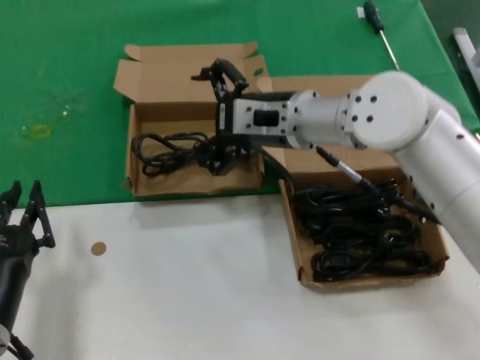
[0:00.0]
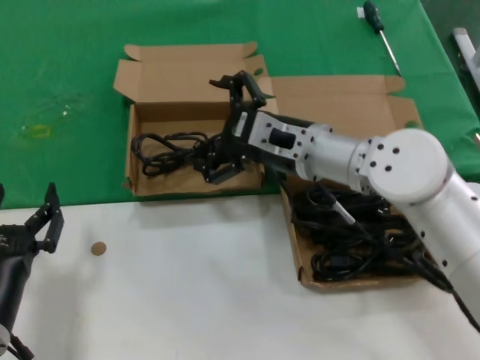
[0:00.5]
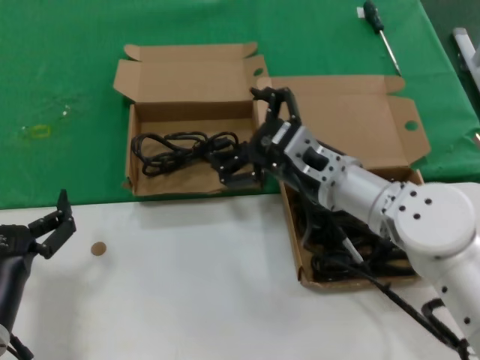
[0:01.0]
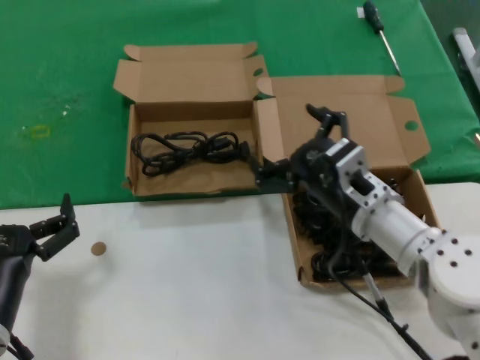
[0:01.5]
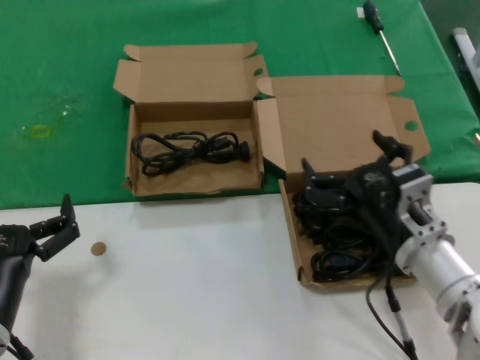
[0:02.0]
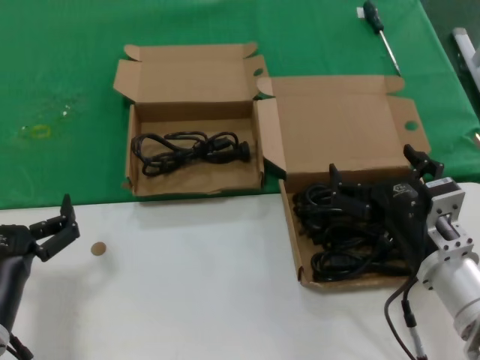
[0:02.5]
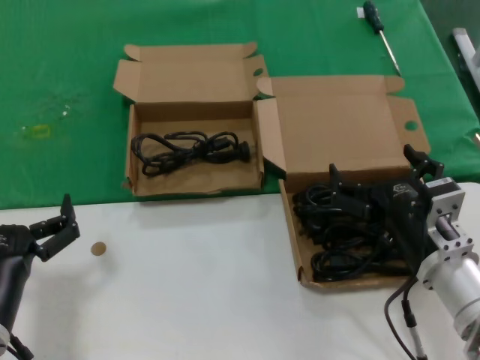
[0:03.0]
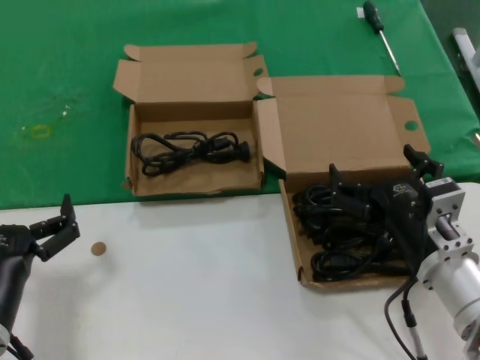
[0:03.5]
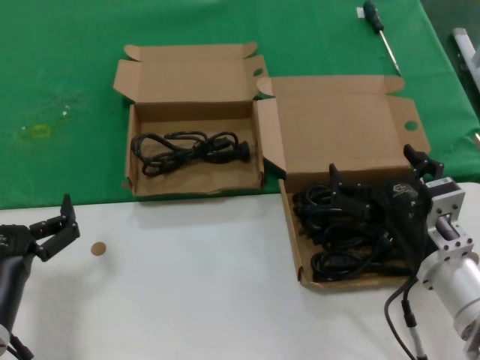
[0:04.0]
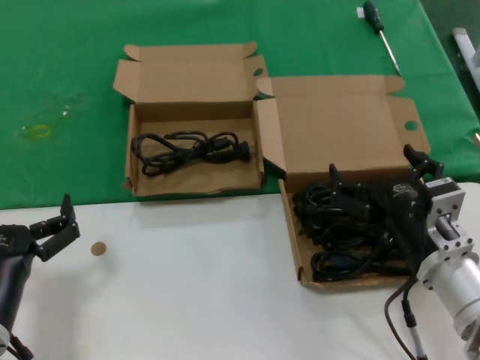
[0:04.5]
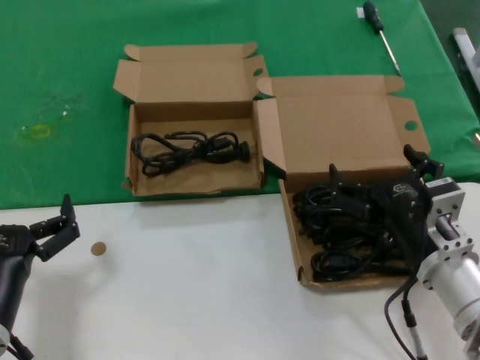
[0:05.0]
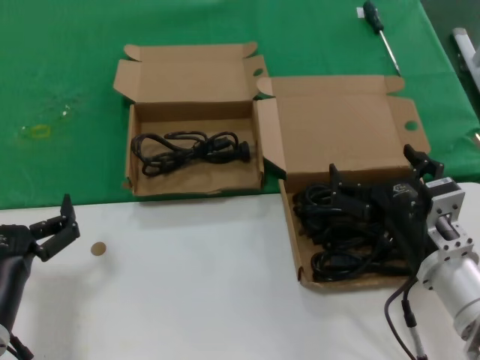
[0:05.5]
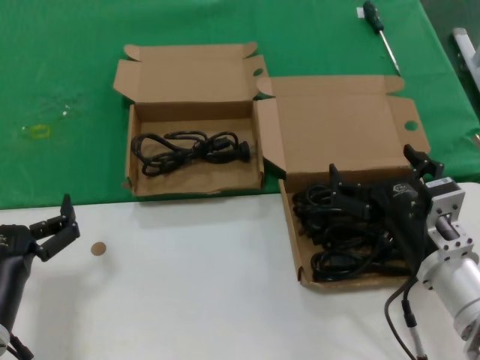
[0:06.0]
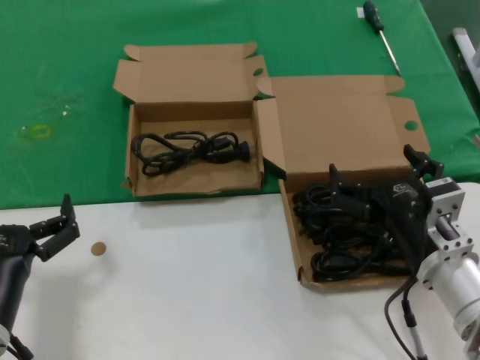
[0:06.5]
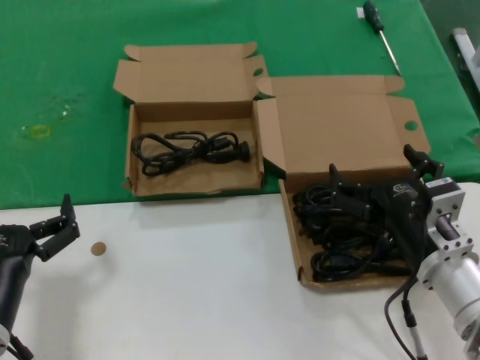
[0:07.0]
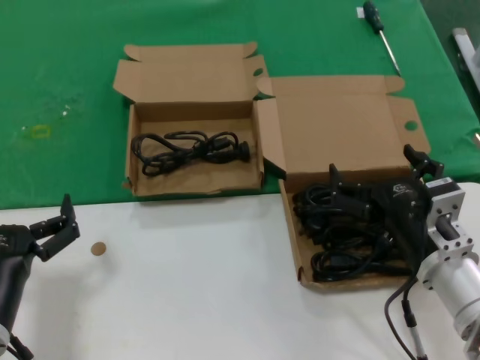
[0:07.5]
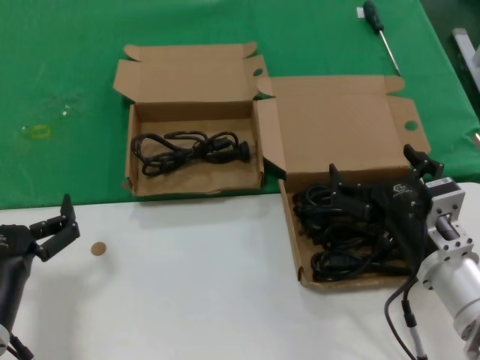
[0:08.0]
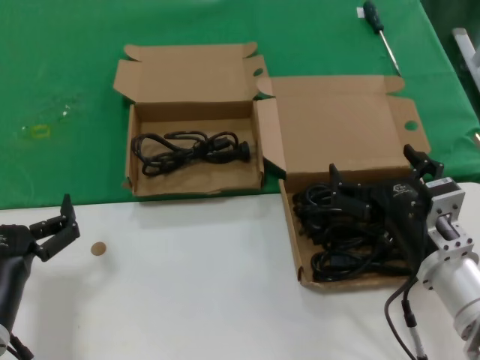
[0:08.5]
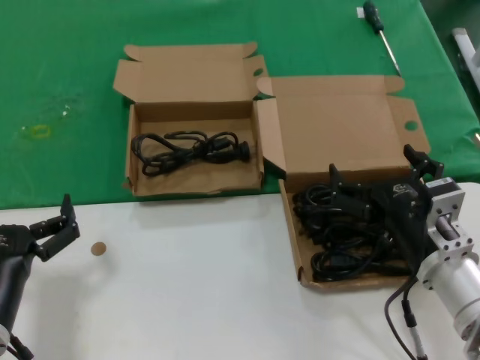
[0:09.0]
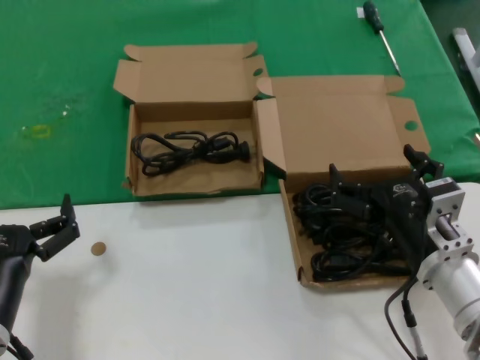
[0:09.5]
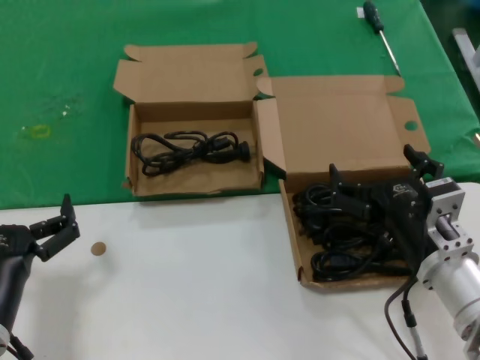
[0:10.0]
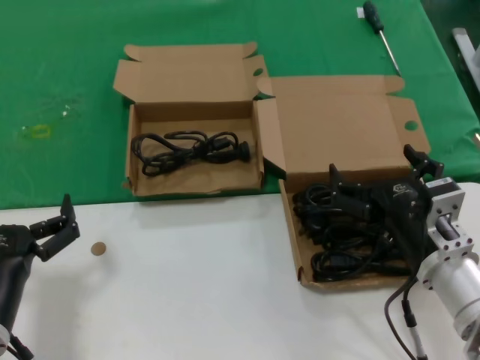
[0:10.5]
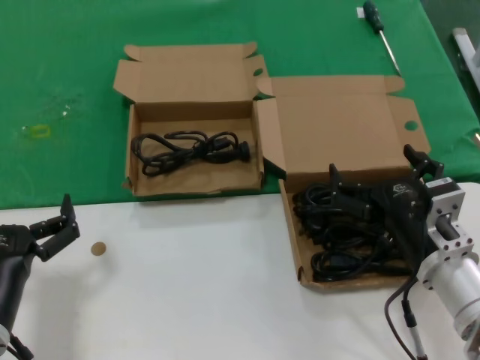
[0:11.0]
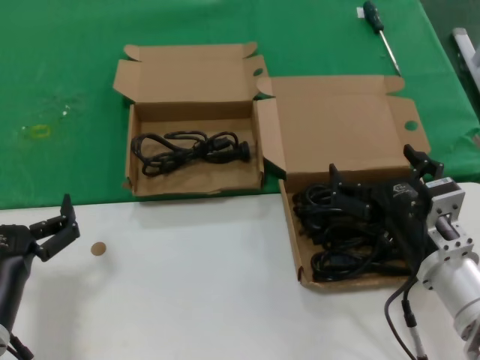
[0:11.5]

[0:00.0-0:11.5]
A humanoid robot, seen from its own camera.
Task of the whole recording: take the parts from the box containing them and put them into an empty box.
0:00.0 to 0:02.0: The right hand travels backward, downward and to the right by about 25 cm.
0:02.0 to 0:04.0: The hands stay close to where they were, moving slightly.
0:04.0 to 0:11.5: Neither hand changes place.

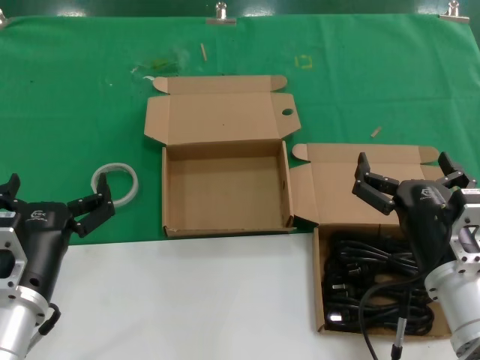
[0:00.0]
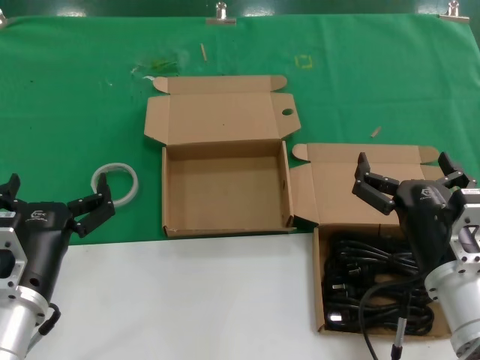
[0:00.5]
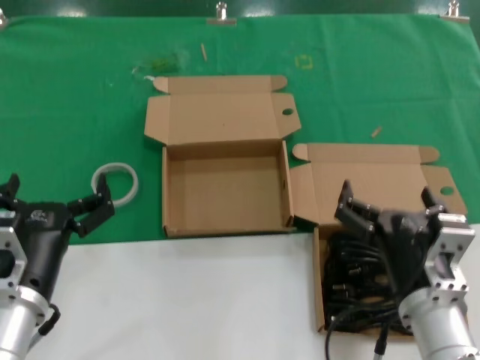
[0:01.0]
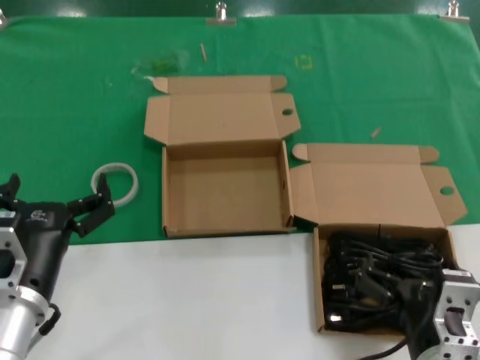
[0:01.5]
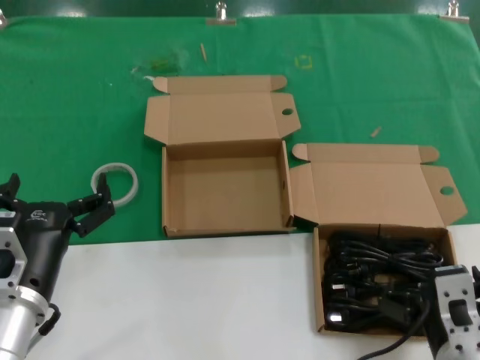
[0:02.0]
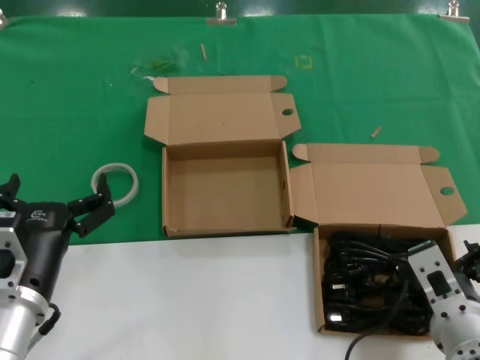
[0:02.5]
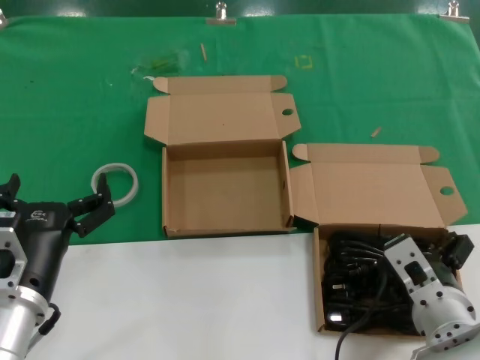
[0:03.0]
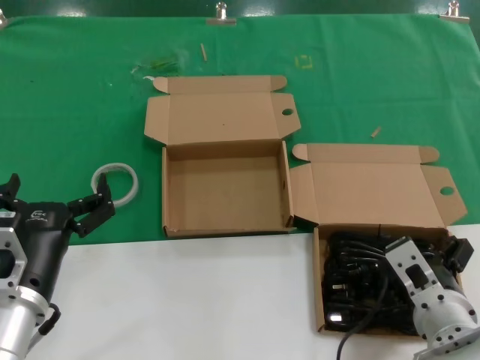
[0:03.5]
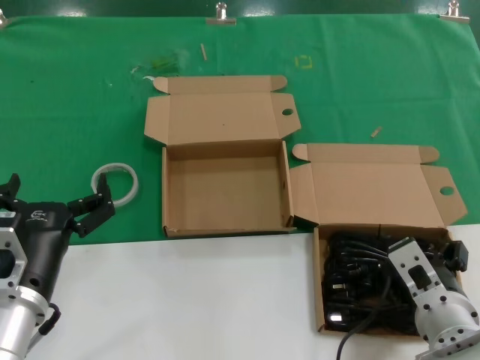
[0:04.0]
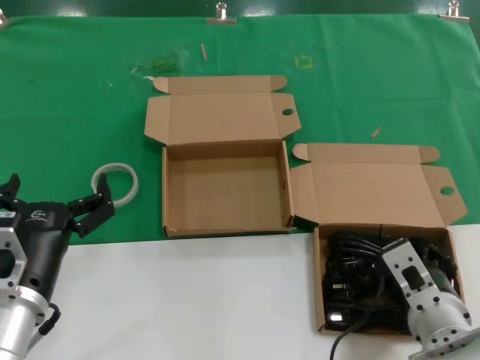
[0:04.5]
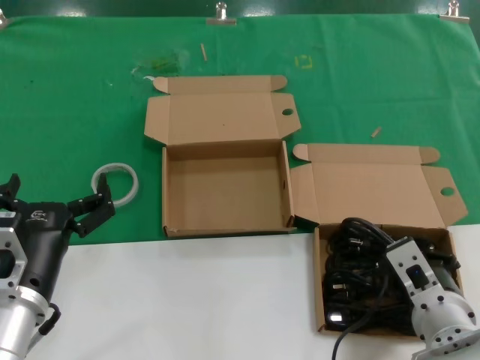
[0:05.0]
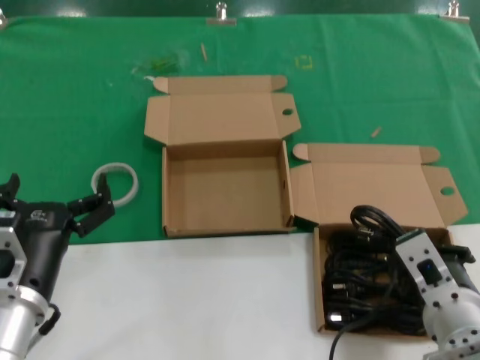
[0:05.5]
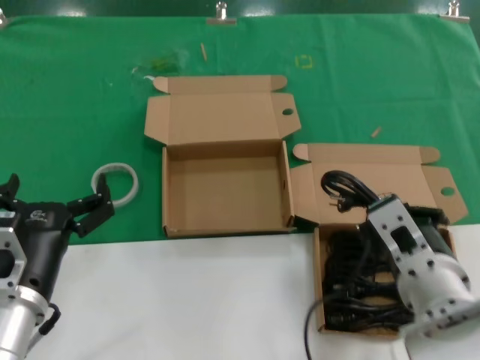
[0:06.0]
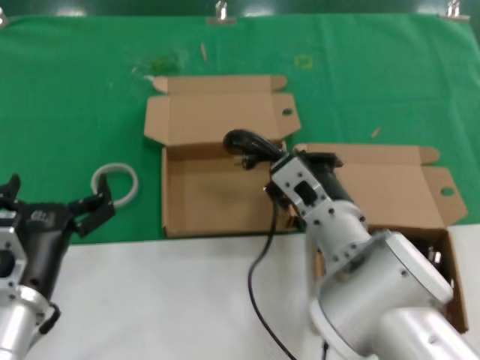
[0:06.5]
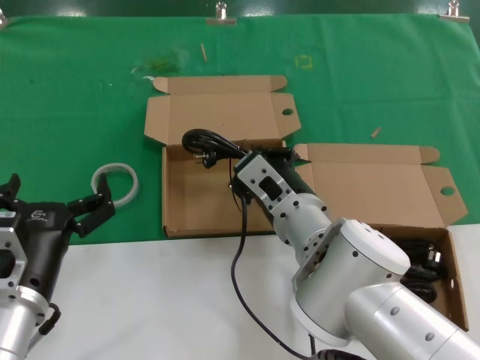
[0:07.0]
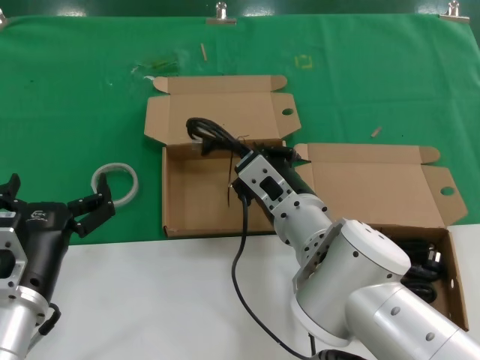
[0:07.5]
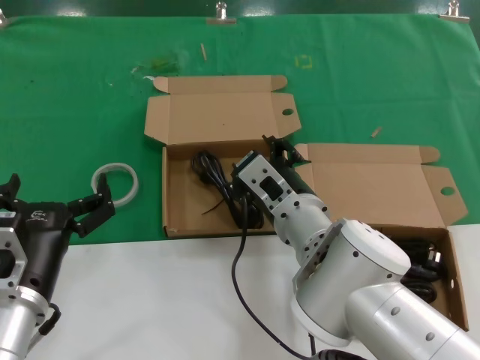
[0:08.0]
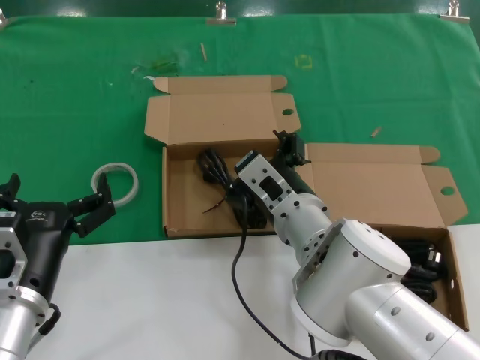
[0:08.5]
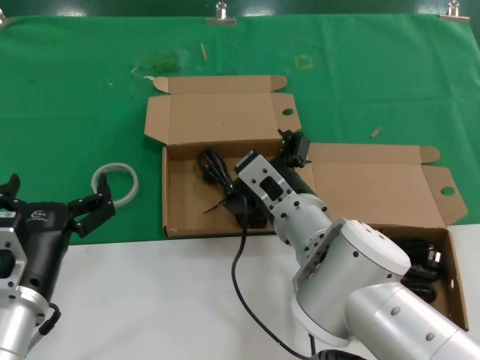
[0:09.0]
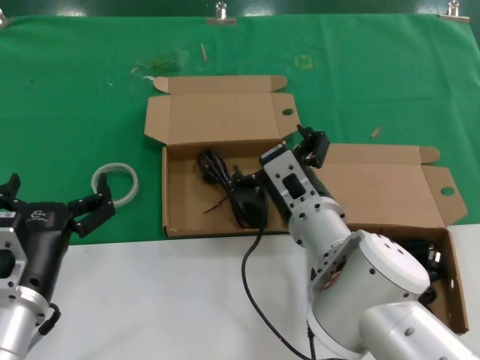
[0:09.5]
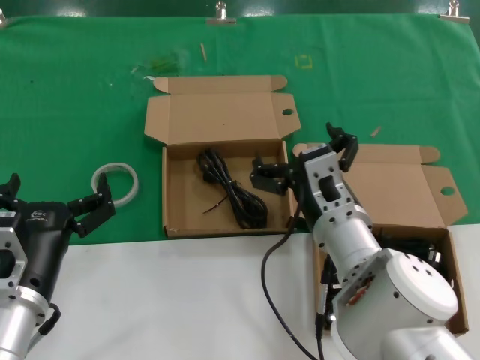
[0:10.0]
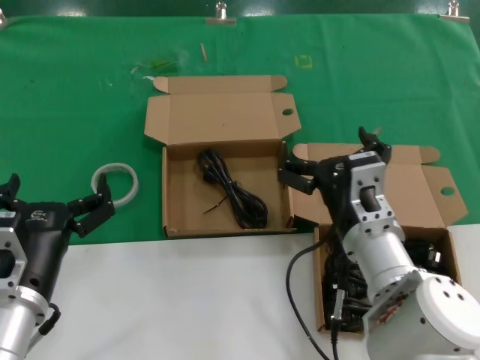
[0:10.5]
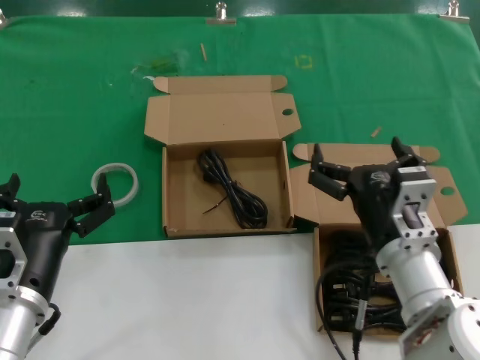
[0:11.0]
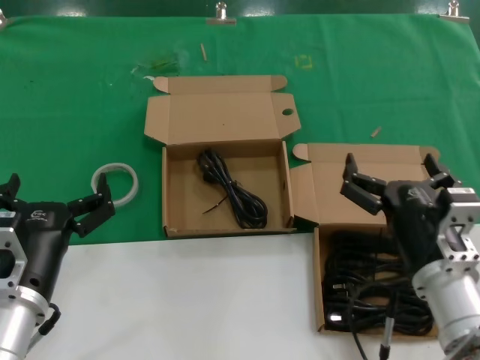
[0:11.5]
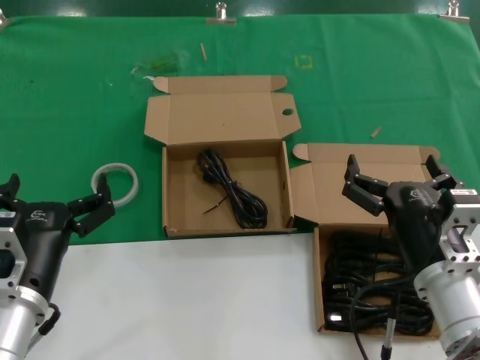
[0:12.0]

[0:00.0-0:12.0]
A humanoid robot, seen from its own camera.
Task of the whole recording: take the parts from the box containing them and put them into an empty box.
Step, 0:00.0 to 0:04.5: Grasp the data cable.
Step, 0:05.0 to 0:07.5: Place the data cable in the another box.
0:00.0 to 0:02.0: The right hand moves backward, about 5 cm.
0:02.0 to 0:04.0: The right hand moves forward, roughly 5 cm.
0:04.0 to 0:06.0: The right hand heads upward, covering some 10 cm.
0:06.0 to 0:08.0: The right hand goes roughly 15 cm forward and to the left.
0:10.0 to 0:12.0: The right hand heads to the right and backward, covering roughly 15 cm.

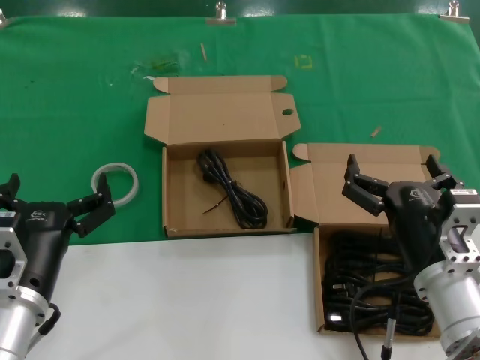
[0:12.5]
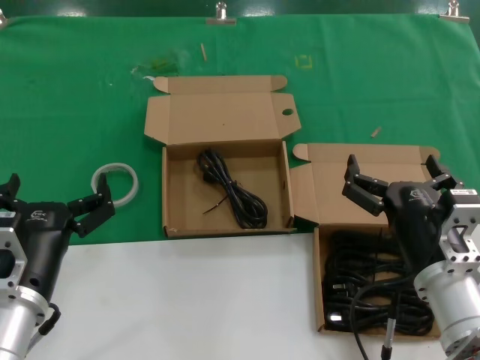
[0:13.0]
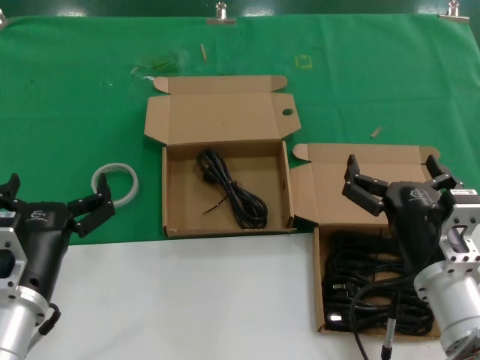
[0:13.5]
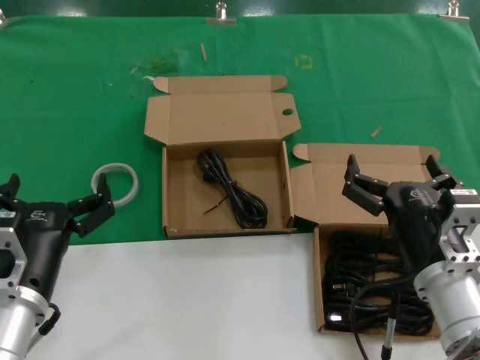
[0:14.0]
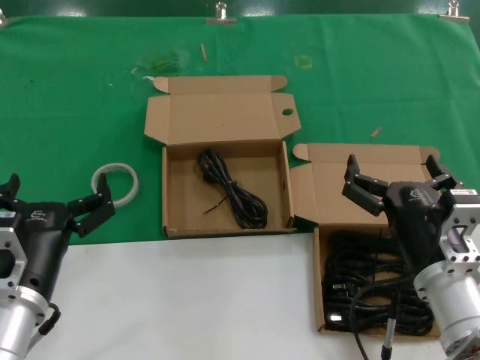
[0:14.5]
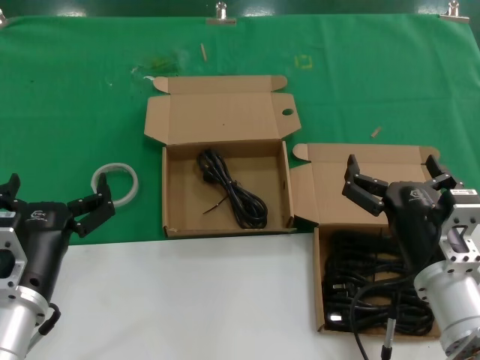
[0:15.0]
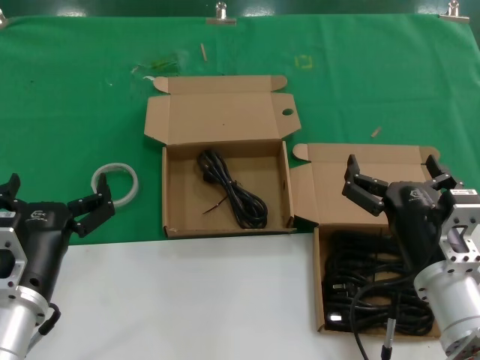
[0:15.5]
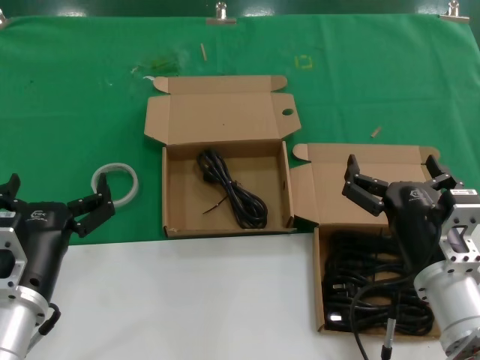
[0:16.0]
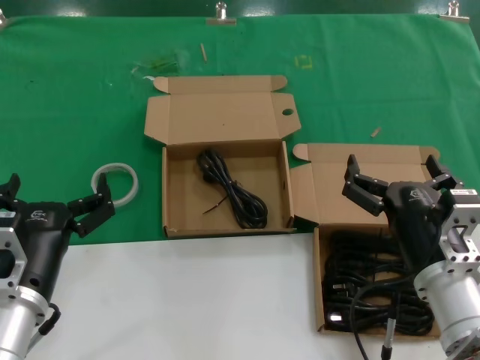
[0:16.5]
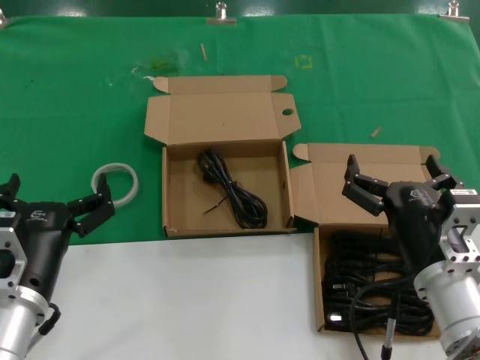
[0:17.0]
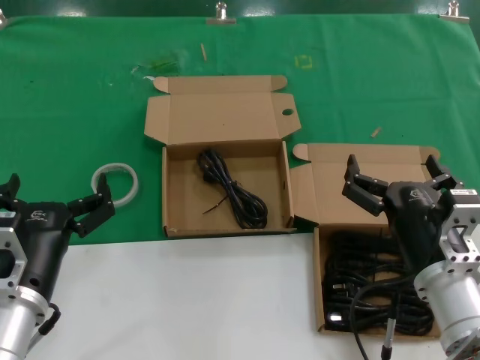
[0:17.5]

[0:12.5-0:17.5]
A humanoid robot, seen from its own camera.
Task of the whole recording: take the parts from the box containing them and put them into an empty box.
0:12.5 to 0:17.5: Both hands stay about where they are.
